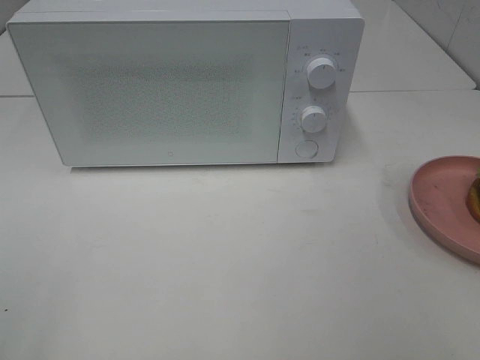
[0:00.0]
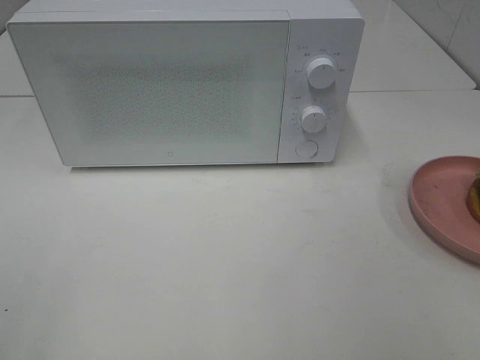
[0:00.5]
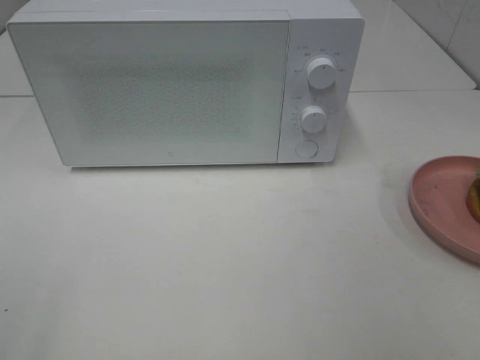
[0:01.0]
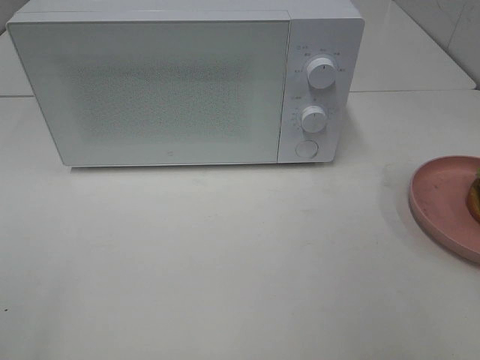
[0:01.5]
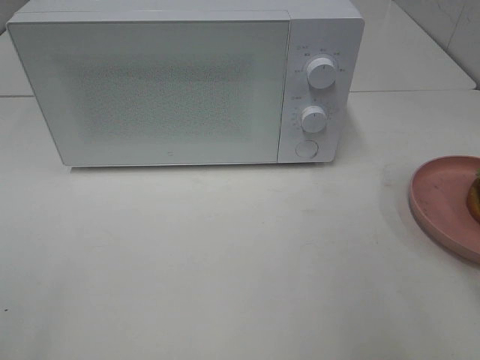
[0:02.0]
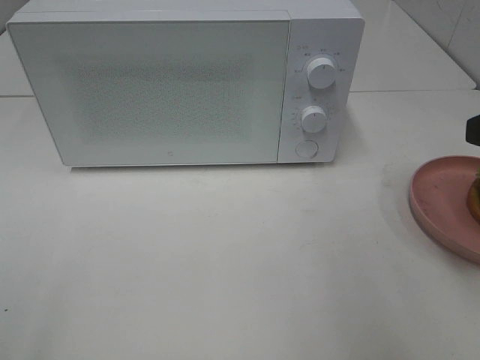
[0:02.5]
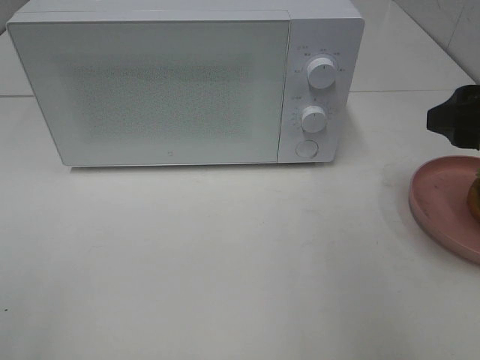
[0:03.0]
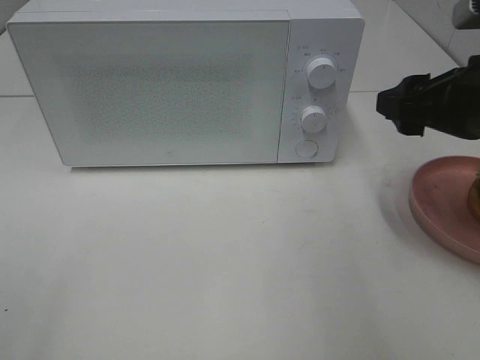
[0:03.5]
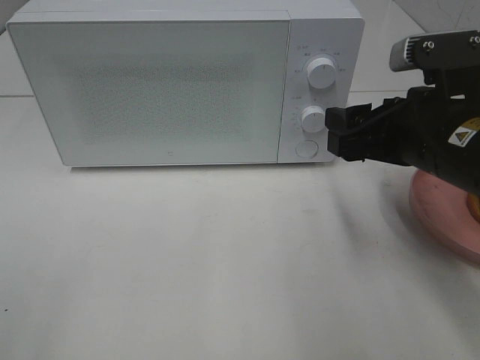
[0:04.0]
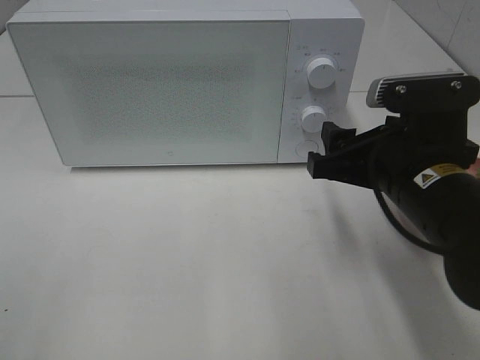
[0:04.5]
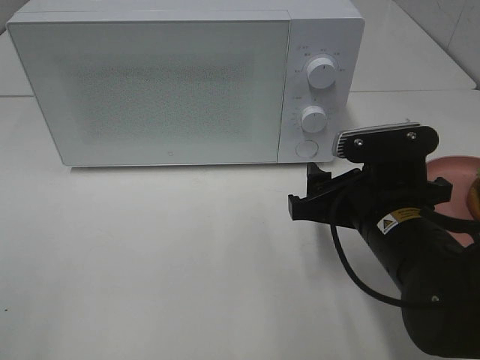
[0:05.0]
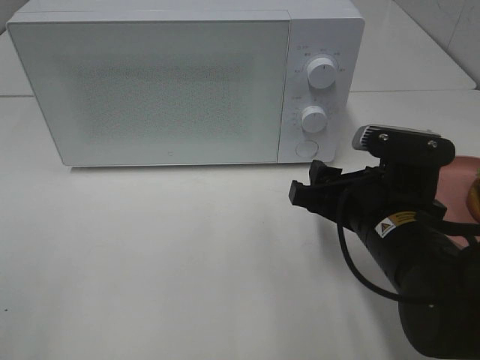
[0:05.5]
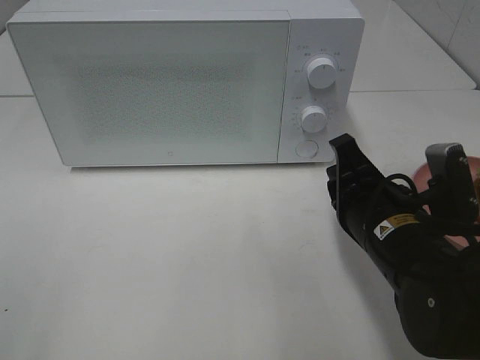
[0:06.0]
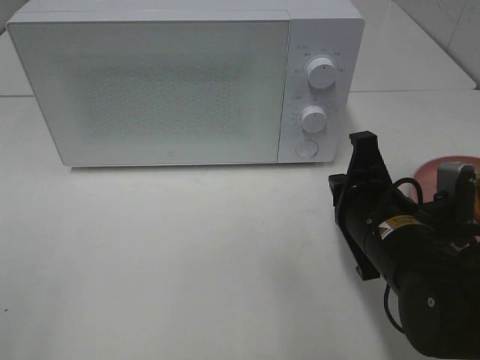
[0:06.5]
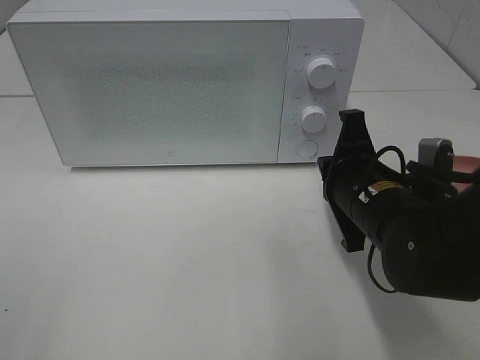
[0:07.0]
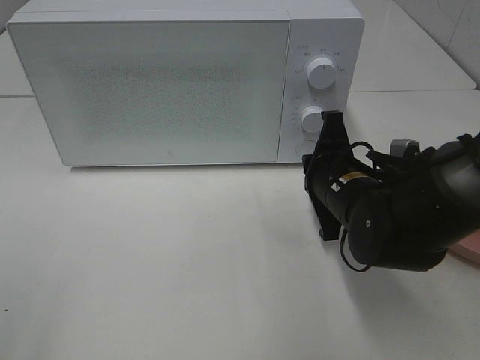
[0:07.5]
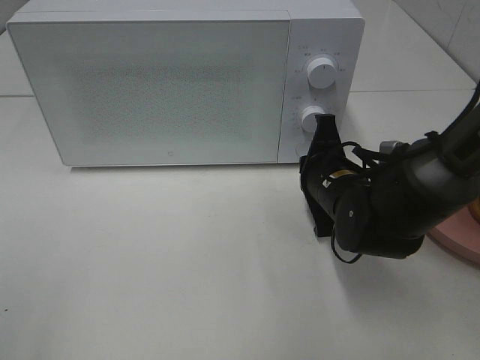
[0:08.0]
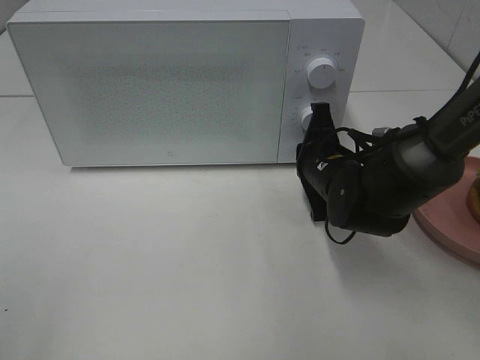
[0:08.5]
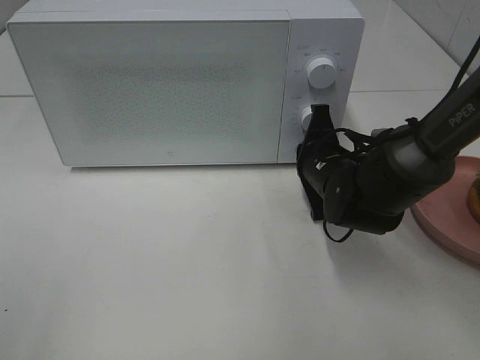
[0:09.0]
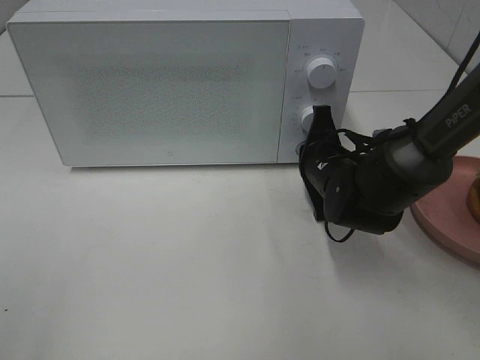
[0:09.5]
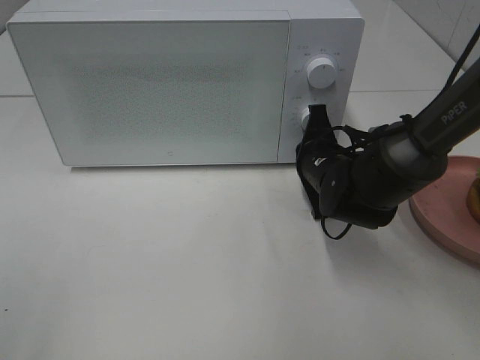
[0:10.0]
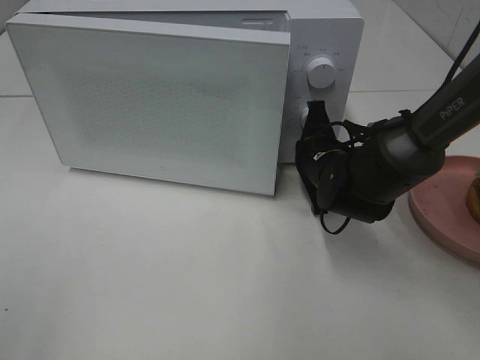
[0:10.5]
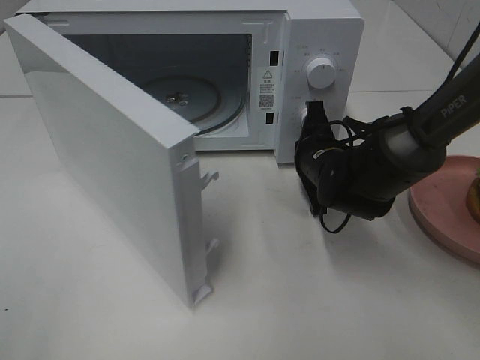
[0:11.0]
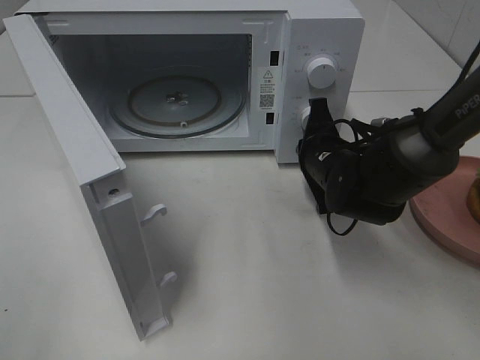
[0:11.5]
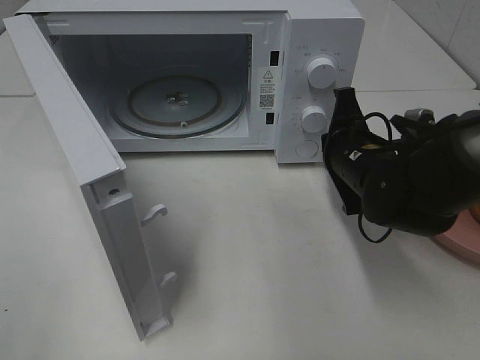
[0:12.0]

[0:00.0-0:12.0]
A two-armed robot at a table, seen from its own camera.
Task of the whole recording: Heat the burger.
2.0 to 4.0 s: The right gripper travels forward, to the left and downward by some 15 cm.
4.0 to 6.0 s: The right gripper goes approximately 10 cm downward, and closes.
6.0 to 8.0 s: The right gripper goes approximately 10 cm forward.
8.0 to 10.0 s: The grippers stay close to where they were, moving slightly.
10.0 to 12.0 s: The right gripper changes place by roughly 5 cm.

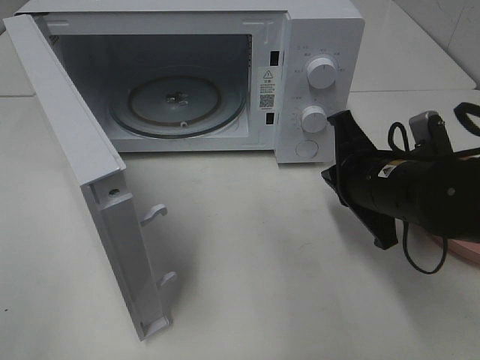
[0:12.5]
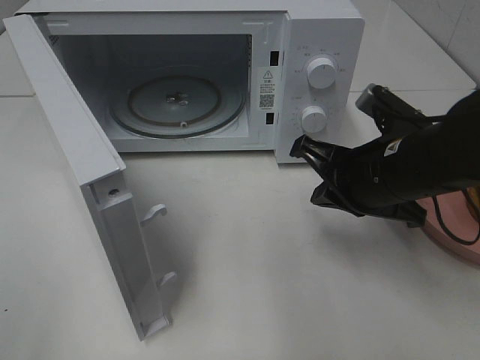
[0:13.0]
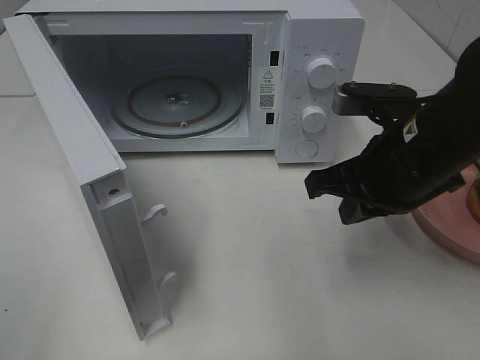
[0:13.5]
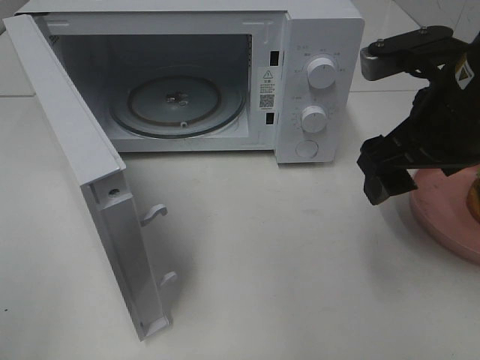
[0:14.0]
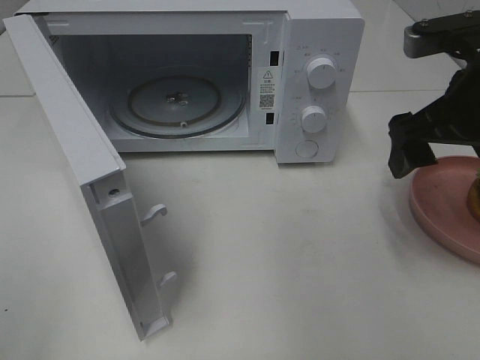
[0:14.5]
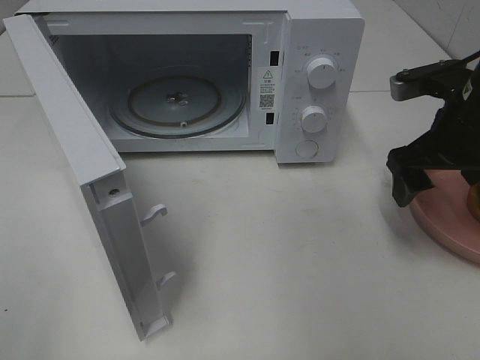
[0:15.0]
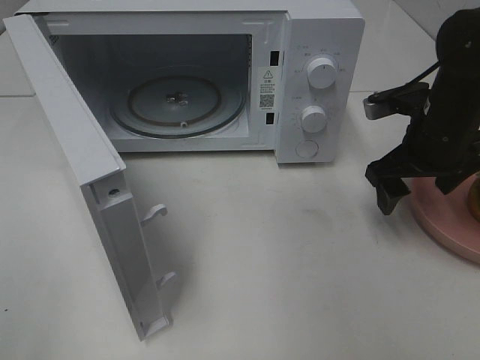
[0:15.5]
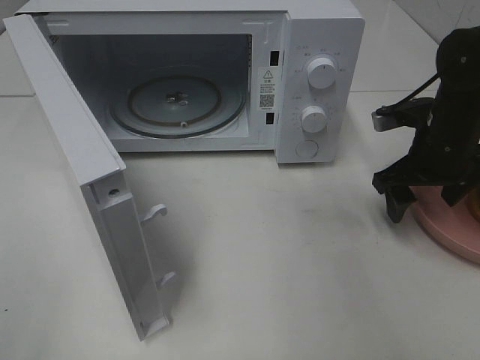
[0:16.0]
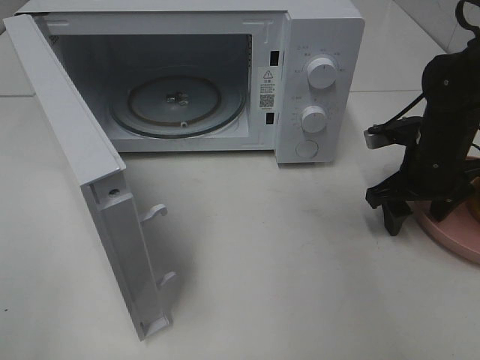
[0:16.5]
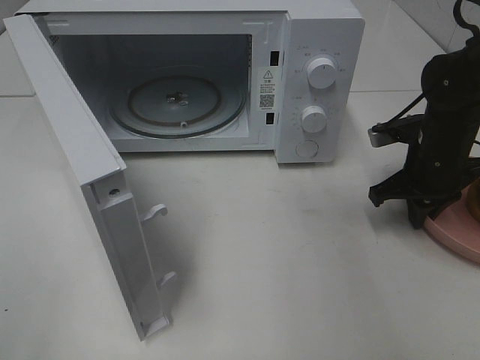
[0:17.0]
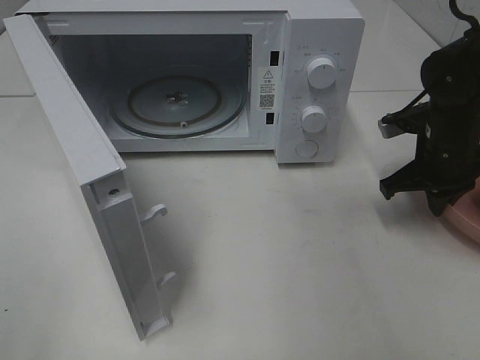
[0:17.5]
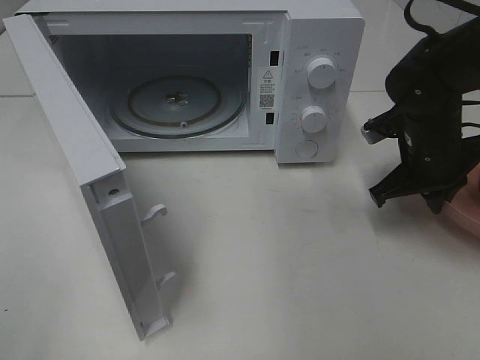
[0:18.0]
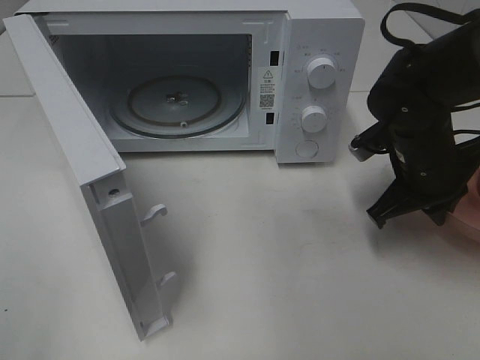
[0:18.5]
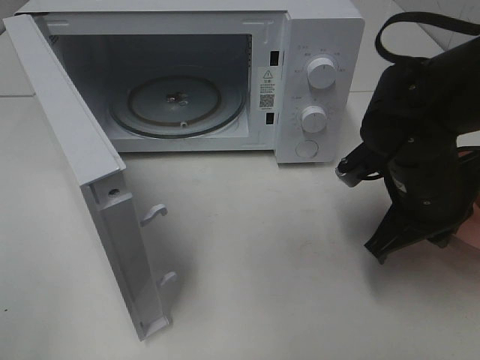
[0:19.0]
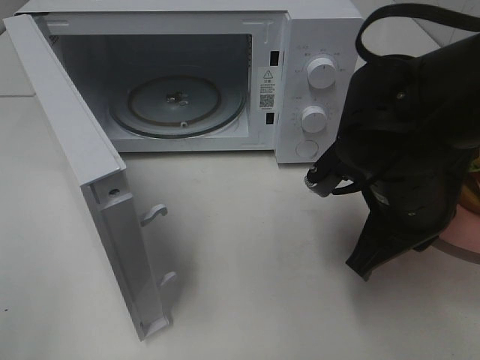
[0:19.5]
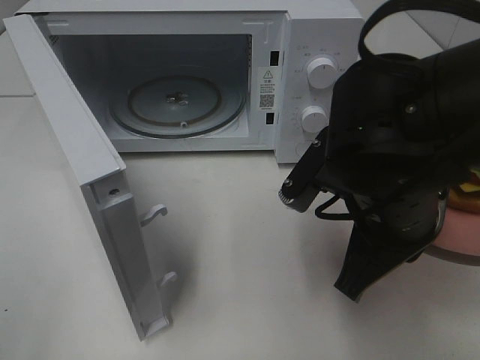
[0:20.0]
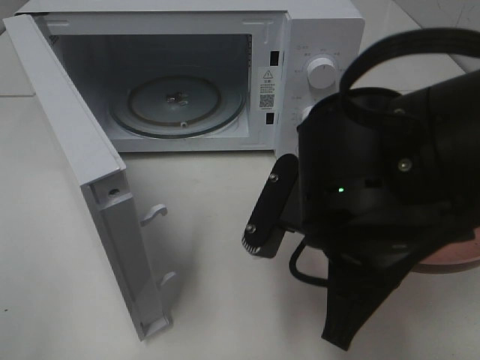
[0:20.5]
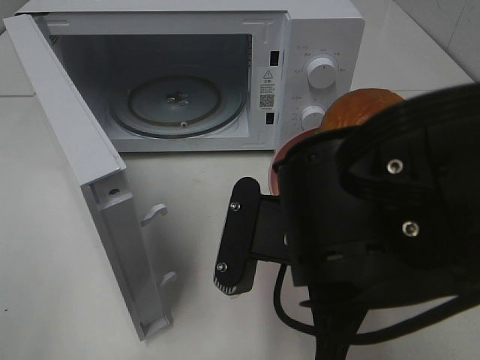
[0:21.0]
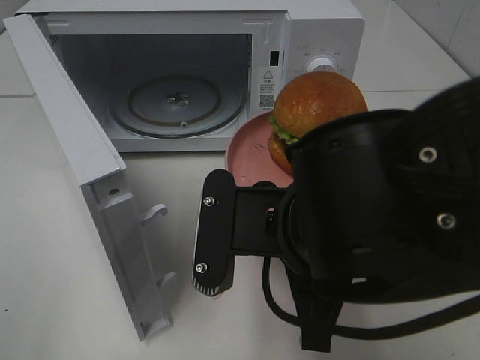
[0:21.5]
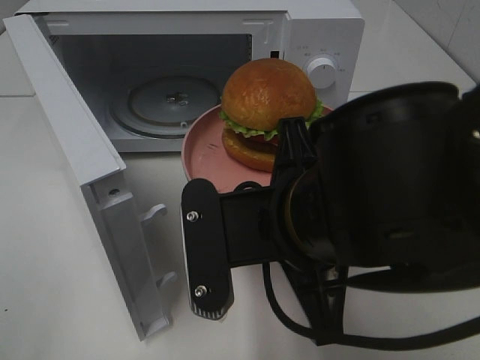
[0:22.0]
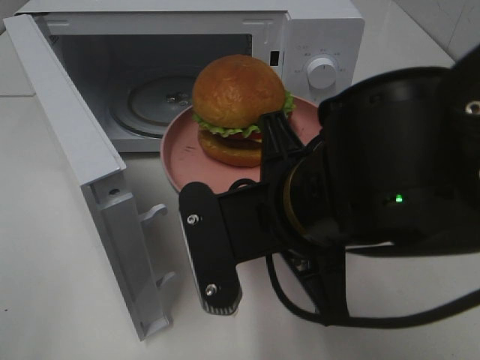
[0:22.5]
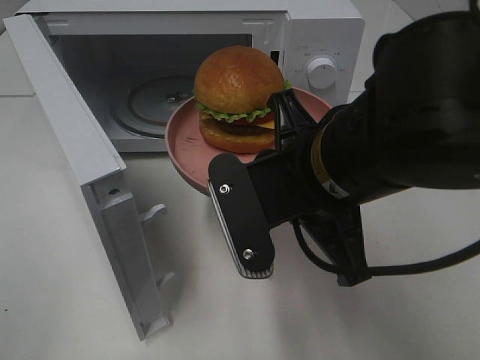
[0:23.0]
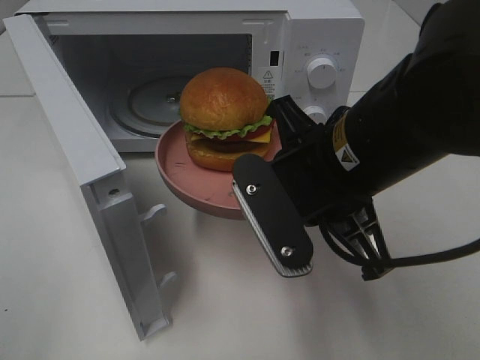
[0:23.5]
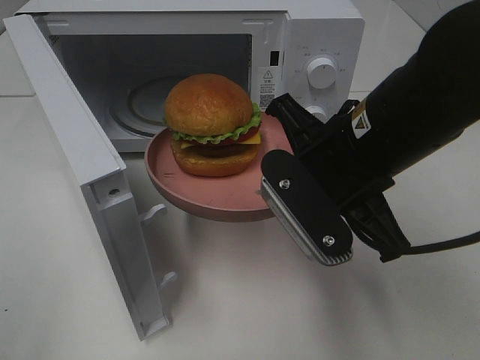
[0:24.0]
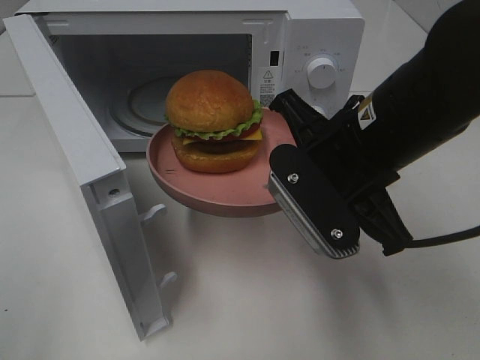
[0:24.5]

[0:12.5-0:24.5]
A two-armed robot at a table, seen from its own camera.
Task of the whole recording: Heat the burger.
Step, 12.5 to 17.5 s: Right hand: grab the plate with the hamburger.
12.5 to 14.5 s: The right gripper goes approximately 15 cm upward and to the right, and opens its fingers.
14.5 to 16.5 s: The right gripper travels downward and forward by approximately 15 cm.
16.5 to 18.5 s: The right gripper ends up approximately 5 cm from where it was, and closes its fingers.
18.5 to 20.5 s: The right gripper goes some 20 cm backward and to the left.
22.5 to 24.5 s: The right gripper shifts roughly 10 cm forward and to the right.

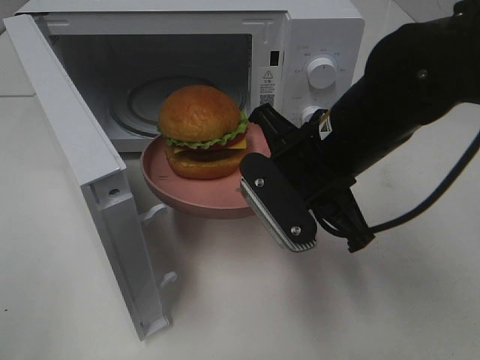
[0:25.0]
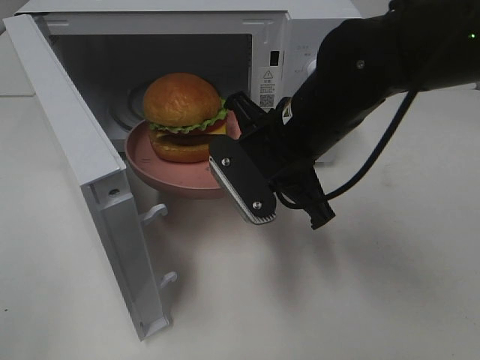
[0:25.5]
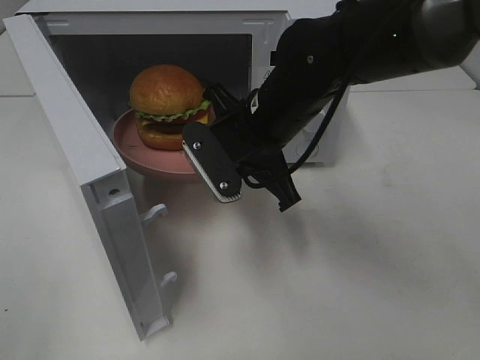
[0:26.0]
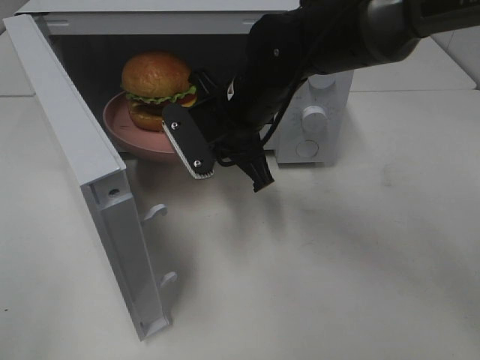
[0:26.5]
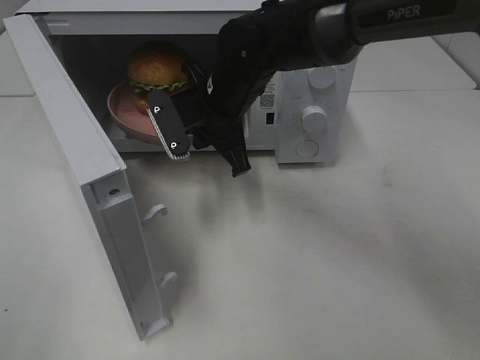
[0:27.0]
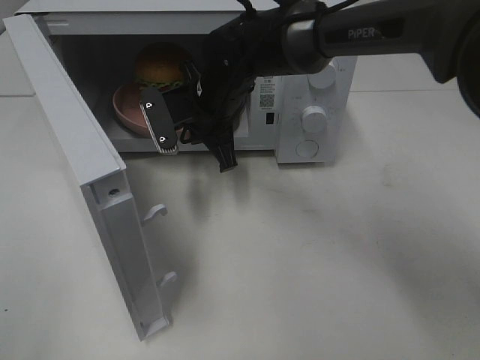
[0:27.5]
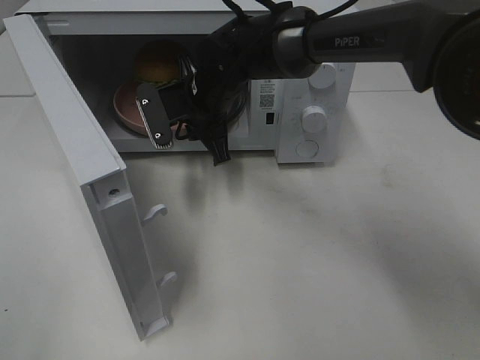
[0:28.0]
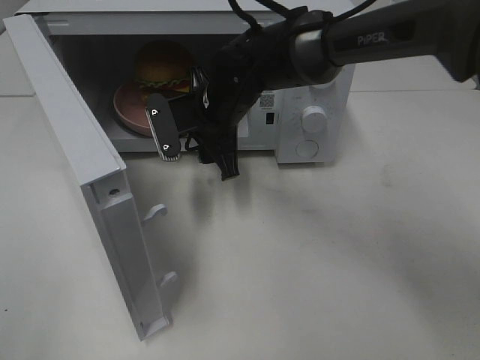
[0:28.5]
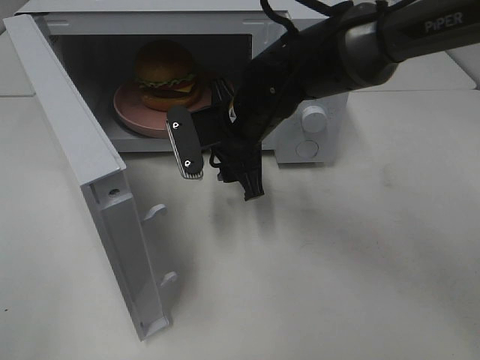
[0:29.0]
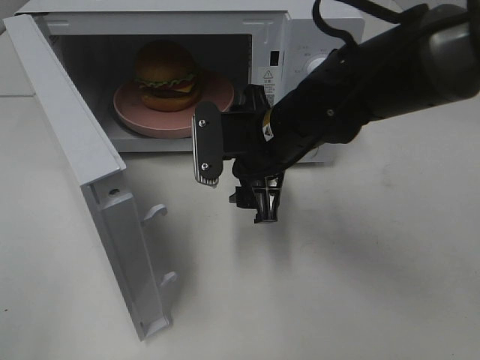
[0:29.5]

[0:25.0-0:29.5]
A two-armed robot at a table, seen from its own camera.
Task of the whole recording: Heat the burger.
Step, 25.0 to 28.0 s: Right hand: place the plate in the microwave.
25.0 to 27.0 s: The right gripper heads forward and to the left, covering approximately 15 cm.
27.0 to 29.5 s: The right gripper goes some 10 cm backward and to the right, and opens.
